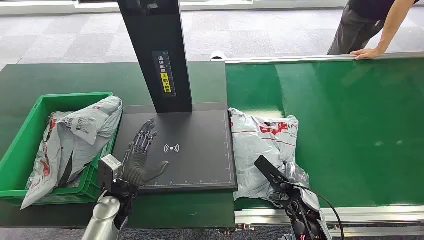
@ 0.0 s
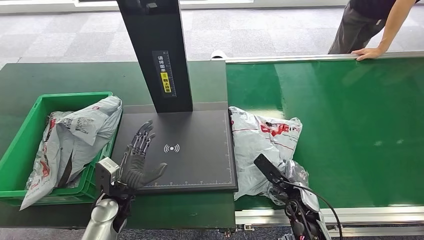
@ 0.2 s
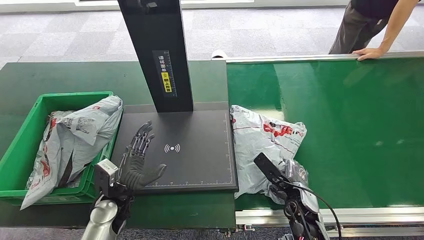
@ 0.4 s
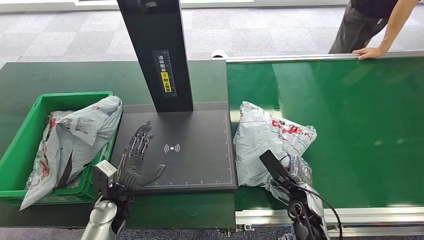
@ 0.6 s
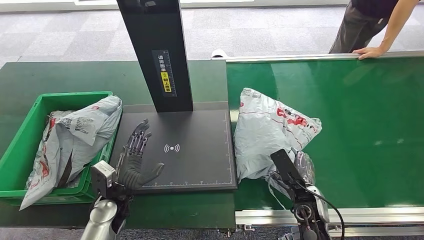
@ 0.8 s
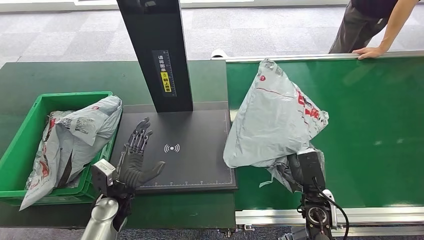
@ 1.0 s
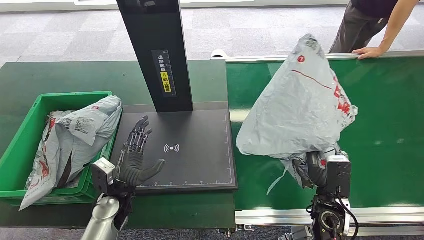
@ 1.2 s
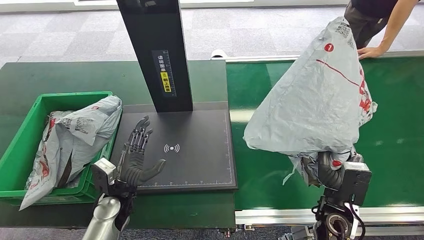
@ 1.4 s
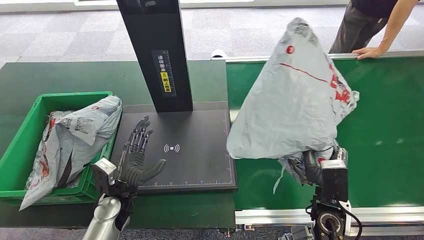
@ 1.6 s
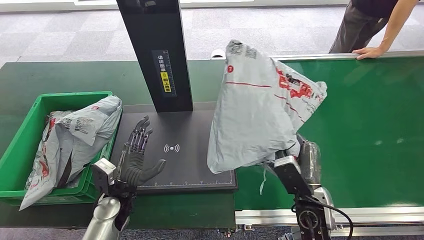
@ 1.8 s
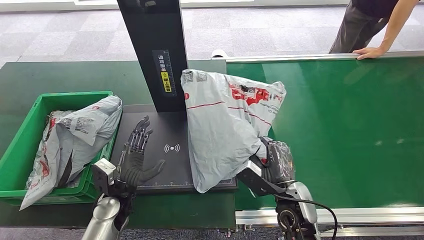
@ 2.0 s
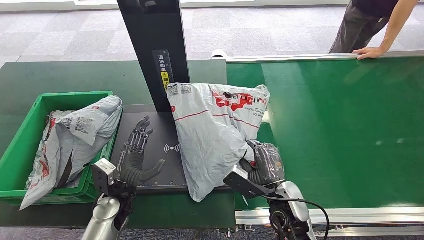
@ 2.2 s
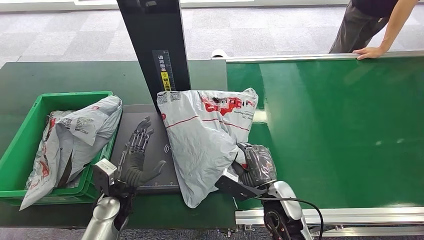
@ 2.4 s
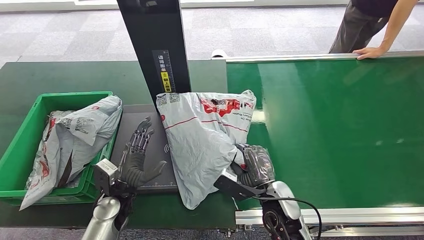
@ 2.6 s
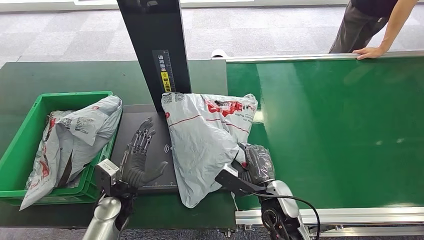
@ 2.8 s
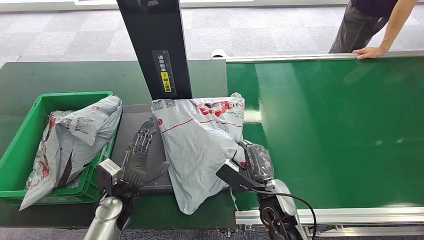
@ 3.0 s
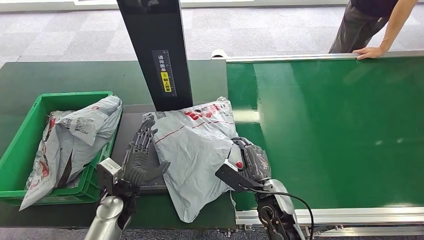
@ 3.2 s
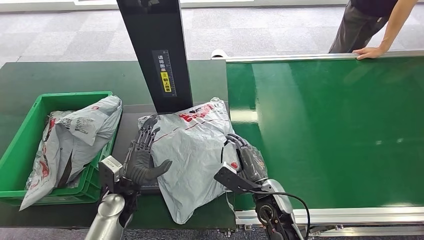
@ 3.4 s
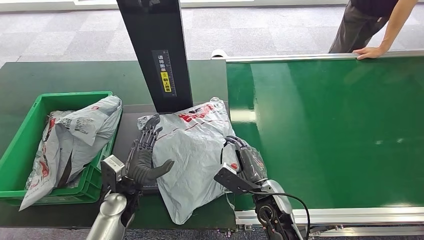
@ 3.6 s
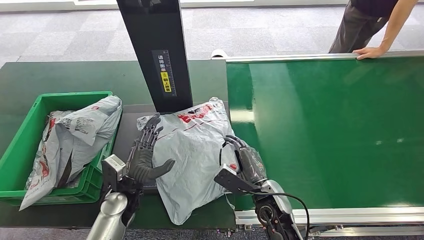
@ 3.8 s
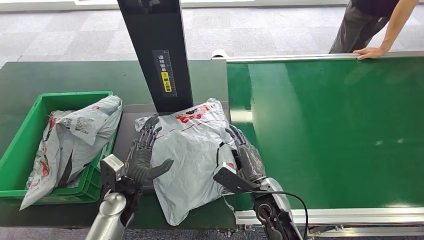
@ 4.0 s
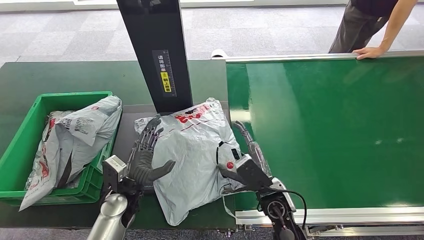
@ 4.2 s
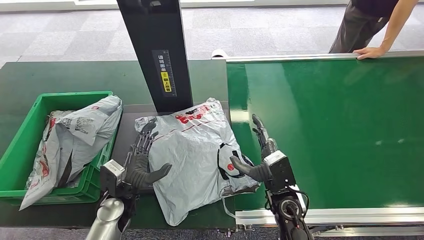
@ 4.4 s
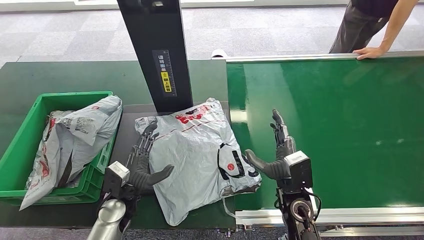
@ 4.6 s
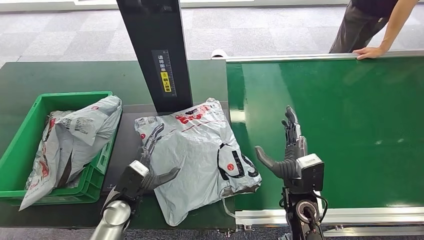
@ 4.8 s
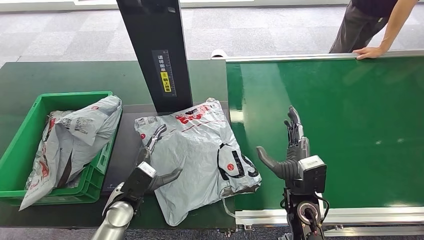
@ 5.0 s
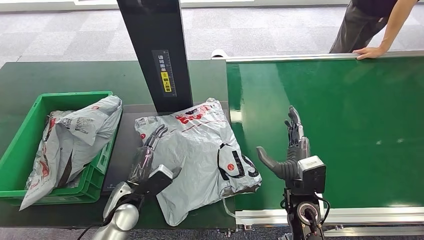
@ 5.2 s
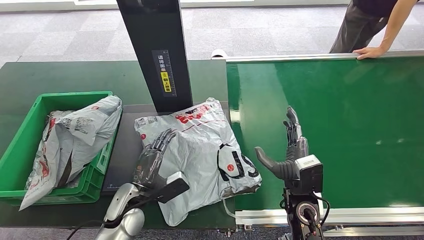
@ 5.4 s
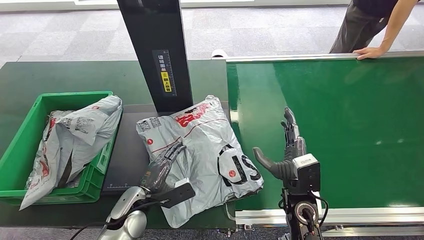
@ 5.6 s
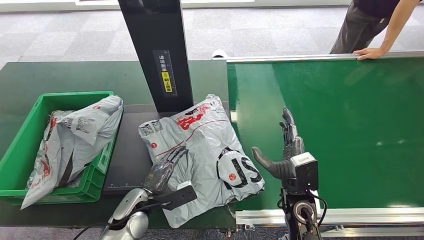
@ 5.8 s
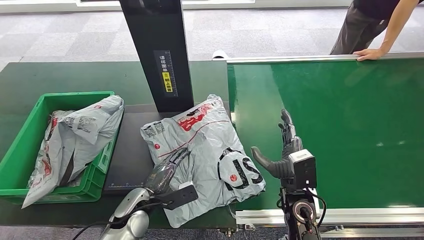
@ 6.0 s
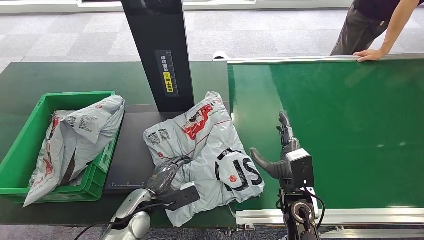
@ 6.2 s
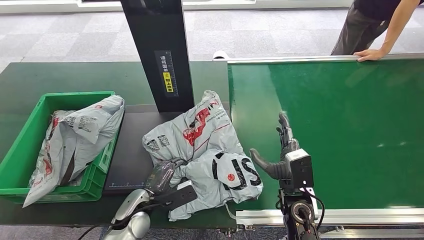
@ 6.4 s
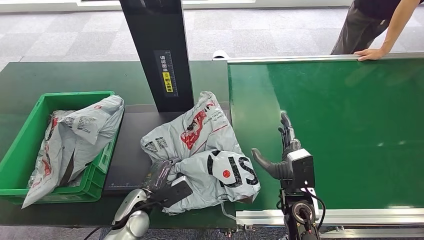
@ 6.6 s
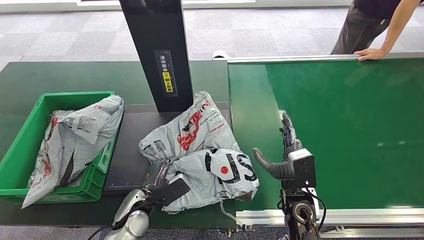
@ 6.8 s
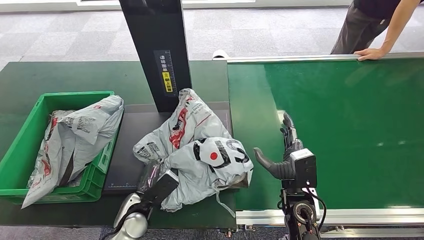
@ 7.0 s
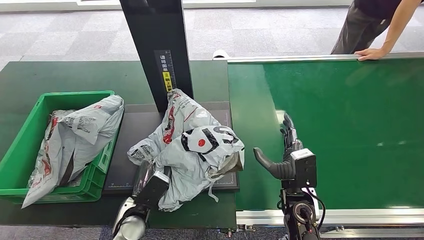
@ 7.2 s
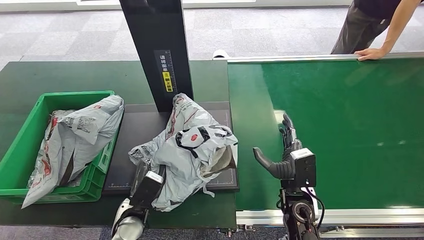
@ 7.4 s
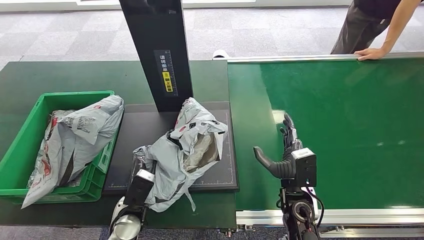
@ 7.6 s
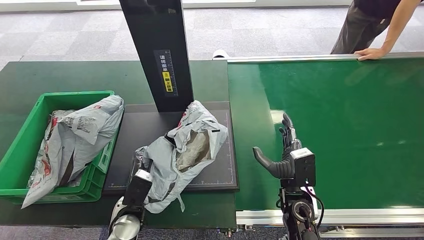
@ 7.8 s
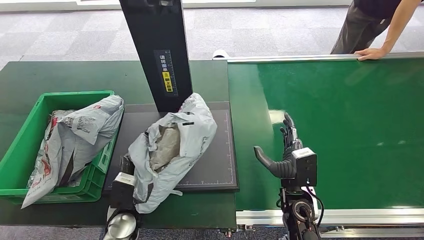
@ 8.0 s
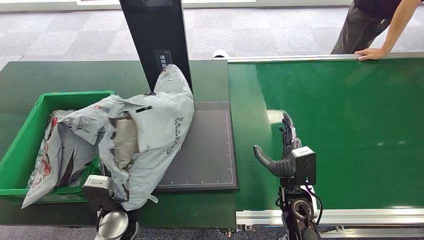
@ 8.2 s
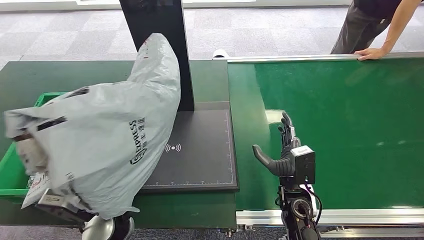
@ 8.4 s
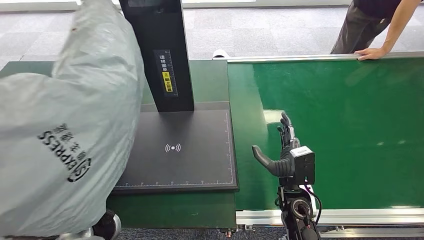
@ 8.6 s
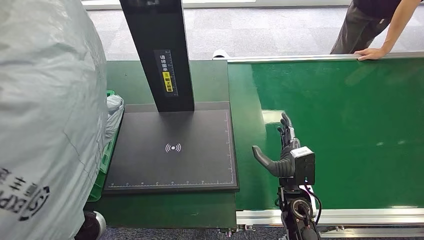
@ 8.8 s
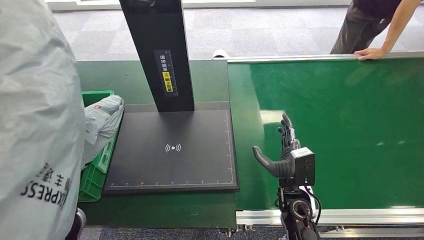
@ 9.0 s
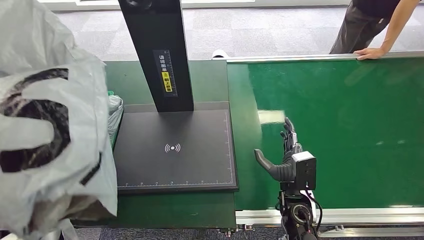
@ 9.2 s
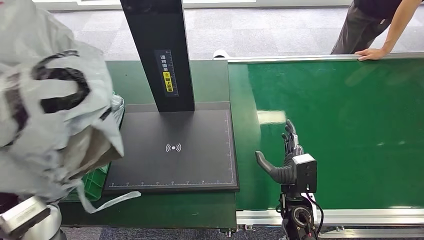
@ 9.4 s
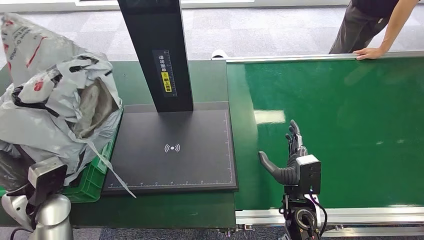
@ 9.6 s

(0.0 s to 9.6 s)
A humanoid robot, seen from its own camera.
Step, 0.0 s - 1.6 s: Pick up the package from the conveyor belt.
Step, 1.8 s - 5.0 s: Place the package onto the inbound machine.
Step, 5.2 s - 8.2 s: Pick up the package from the inbound machine.
3.2 s - 4.8 s: The right hand shifts approximately 5 cm to the right.

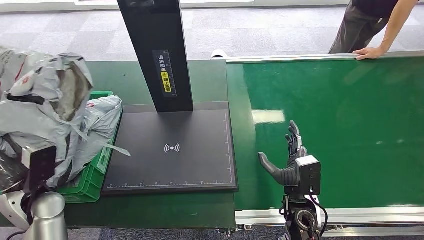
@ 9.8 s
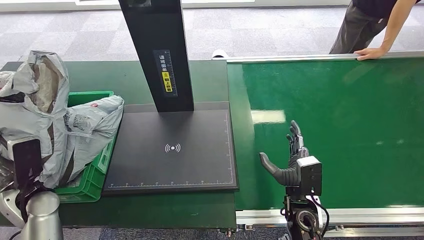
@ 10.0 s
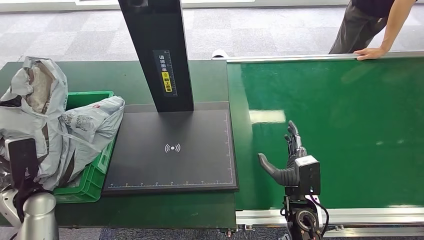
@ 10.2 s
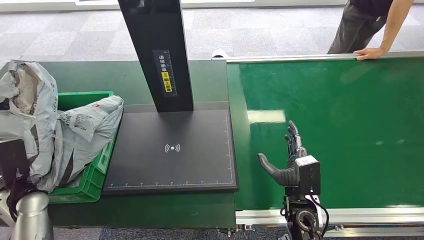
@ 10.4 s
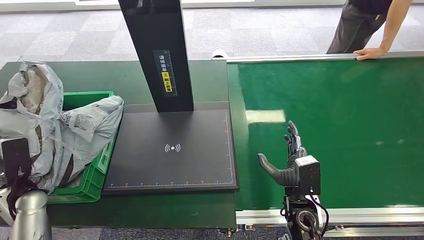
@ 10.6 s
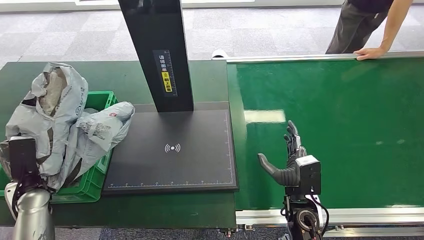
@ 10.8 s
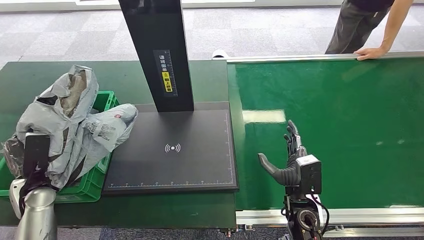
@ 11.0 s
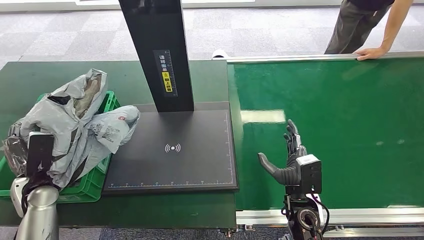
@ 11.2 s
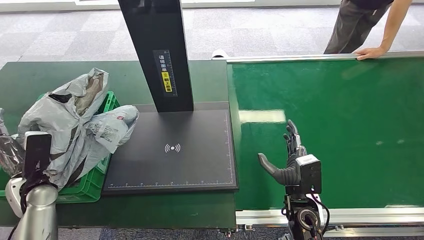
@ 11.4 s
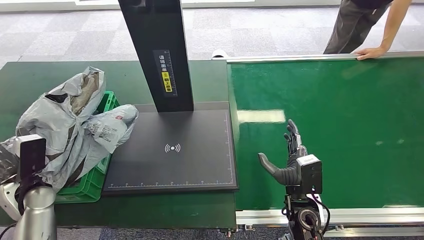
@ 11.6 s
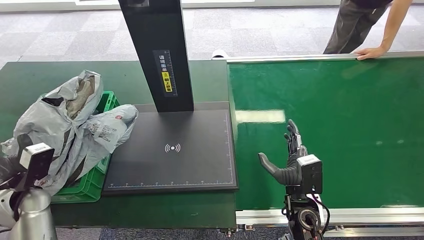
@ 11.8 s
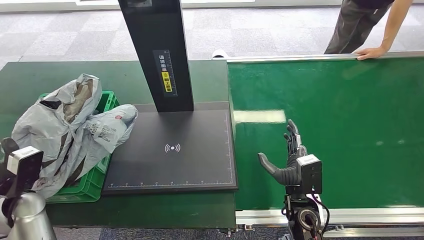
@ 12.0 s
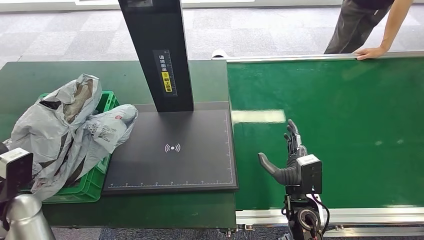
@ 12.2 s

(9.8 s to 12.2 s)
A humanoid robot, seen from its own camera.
Step, 9.8 s - 12.2 s: Place the package into the parcel locker.
9.8 s - 11.0 s: The left hand moves to the left and downward, approximately 10 cm.
11.0 s - 12.2 s: The left hand moves upward, roughly 5 cm.
